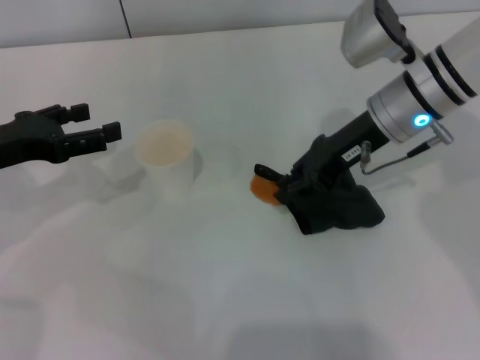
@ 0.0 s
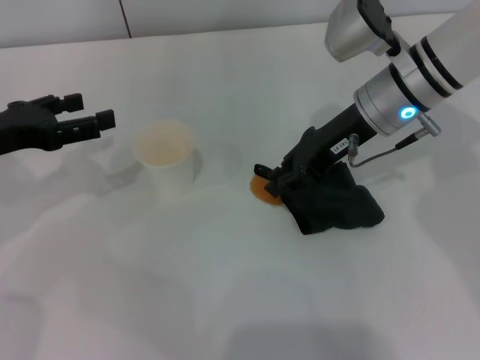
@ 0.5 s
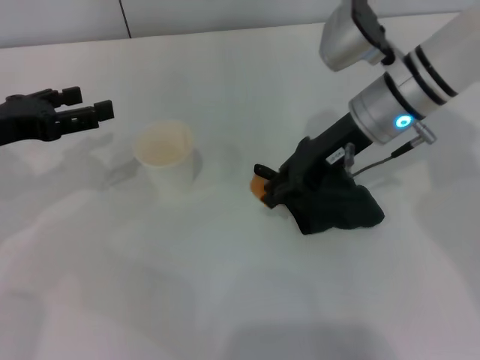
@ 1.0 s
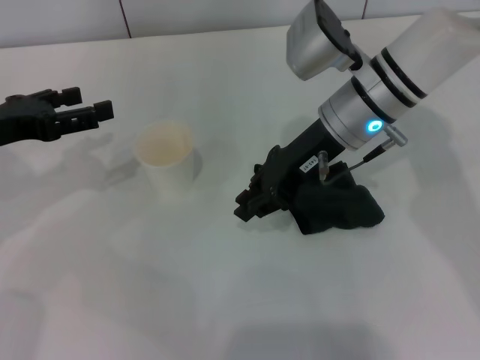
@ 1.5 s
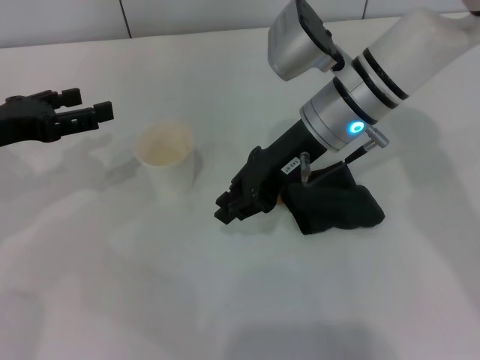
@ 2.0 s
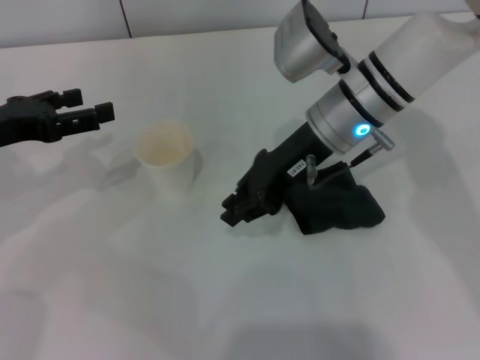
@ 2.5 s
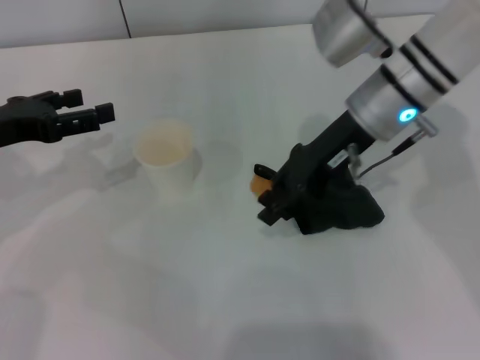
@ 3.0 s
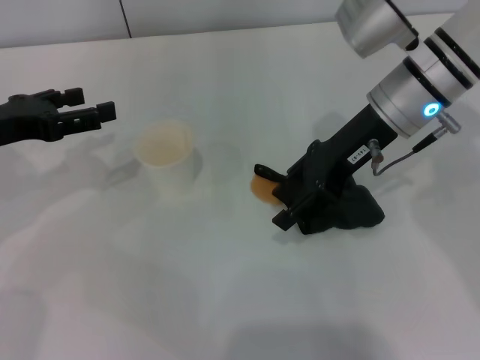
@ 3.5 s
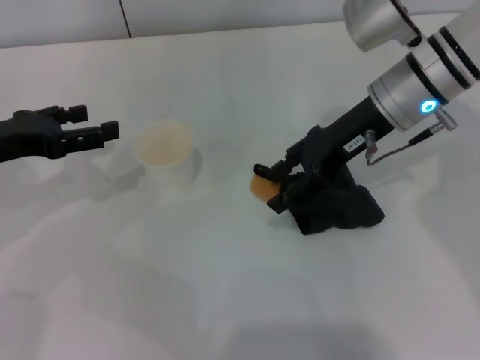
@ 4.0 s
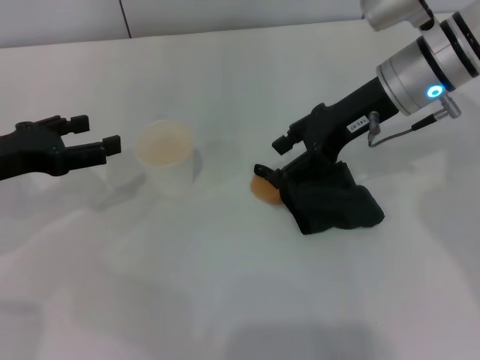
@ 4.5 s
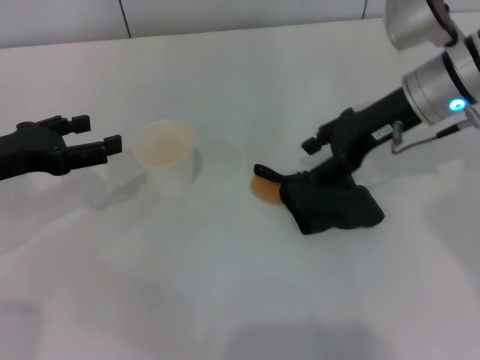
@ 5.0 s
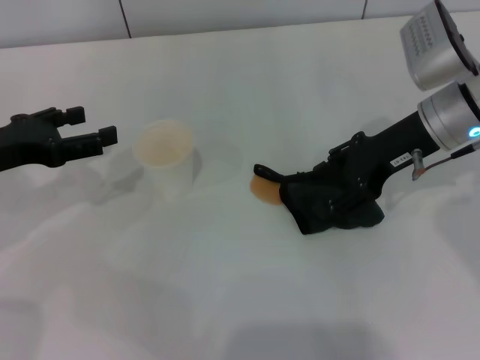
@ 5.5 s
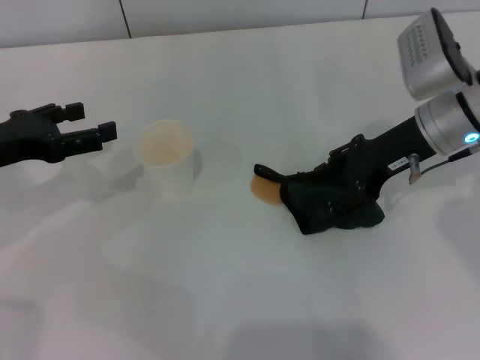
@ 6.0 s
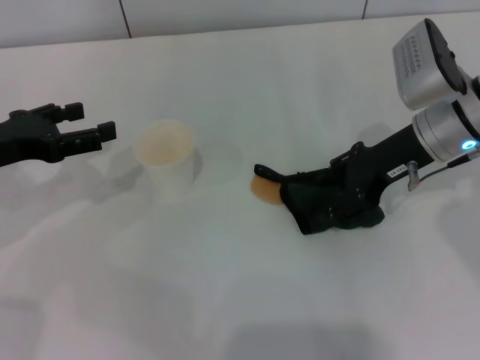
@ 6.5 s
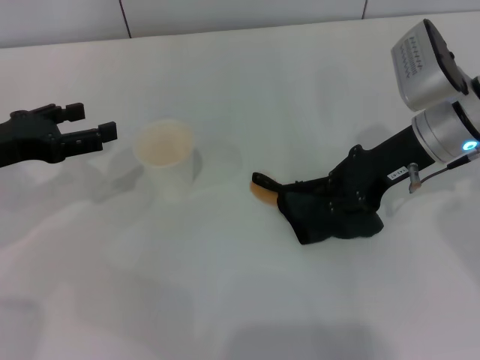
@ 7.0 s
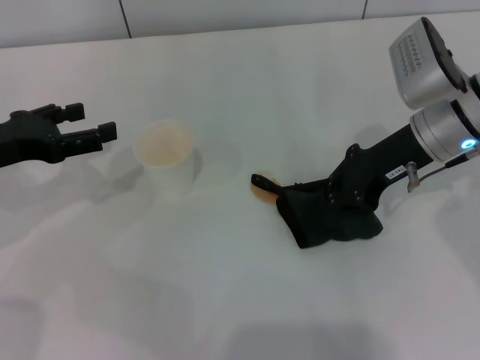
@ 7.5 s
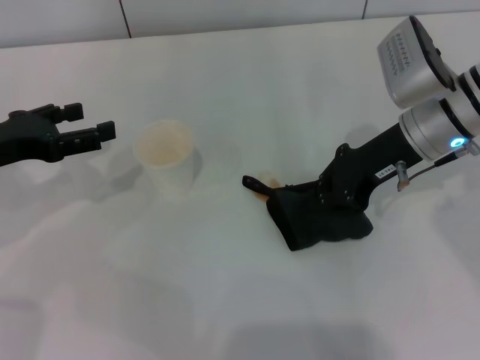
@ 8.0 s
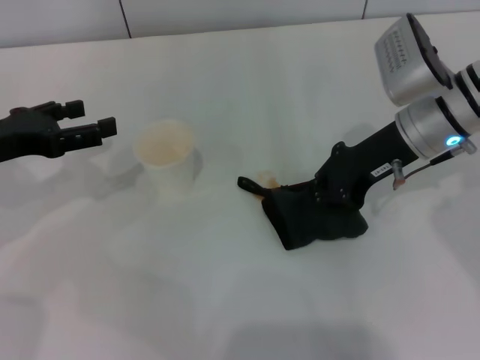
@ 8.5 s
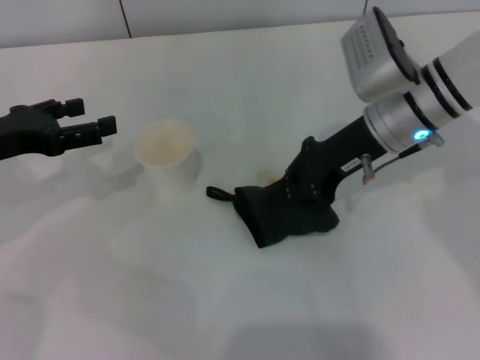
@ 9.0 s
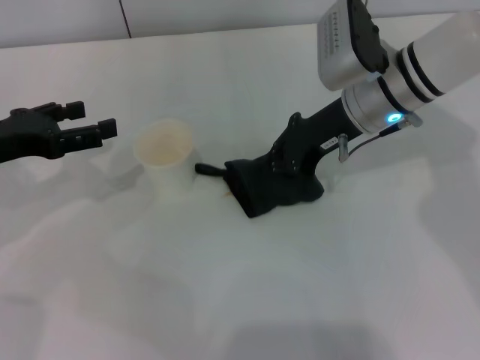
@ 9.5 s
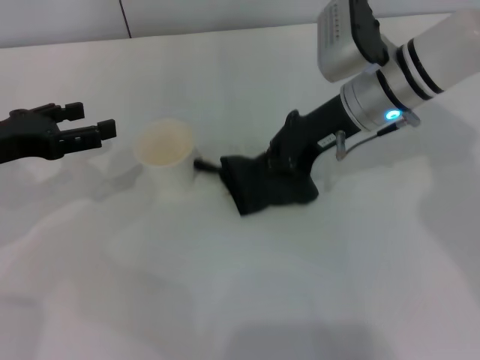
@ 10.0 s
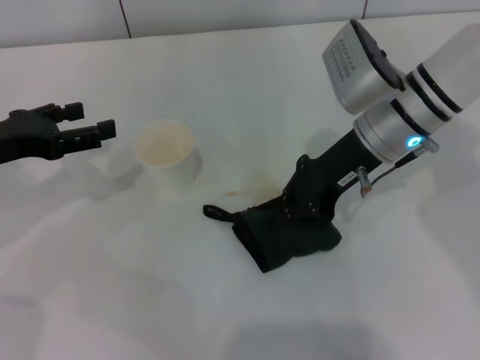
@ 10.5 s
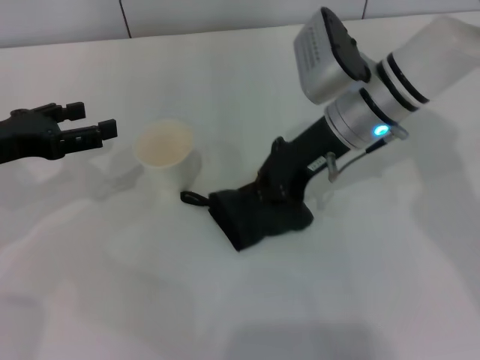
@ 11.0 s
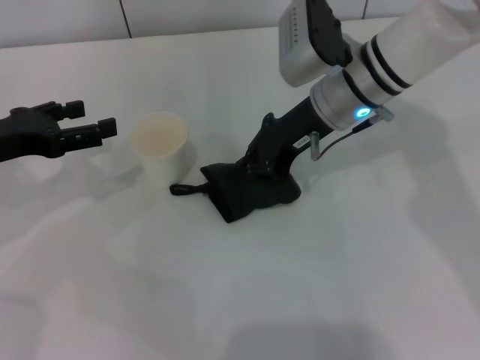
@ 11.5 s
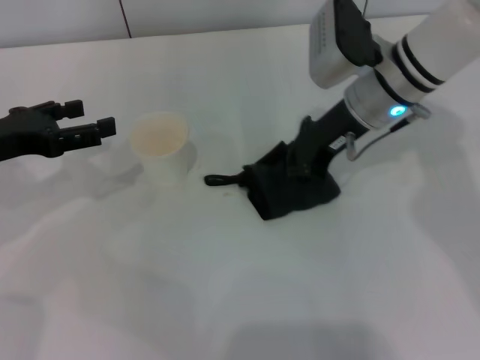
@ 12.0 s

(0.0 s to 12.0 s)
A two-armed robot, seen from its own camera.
Step, 0.0 s - 7.0 s: Grasp the rag with the right gripper.
0.0 s - 2.0 s: The right gripper heads to the left, covering some 5 cm.
2.0 s - 4.0 s: The right gripper travels to the right by approximately 5 cm, and opens its fingers.
4.0 s - 6.0 s: The right gripper heads to the right, covering approximately 5 cm.
6.0 s - 8.0 s: The right gripper closes its fingers.
8.0 s - 10.0 s: The right gripper shifts roughly 5 cm to the left.
10.0 s - 12.0 s: The grippers make only small movements.

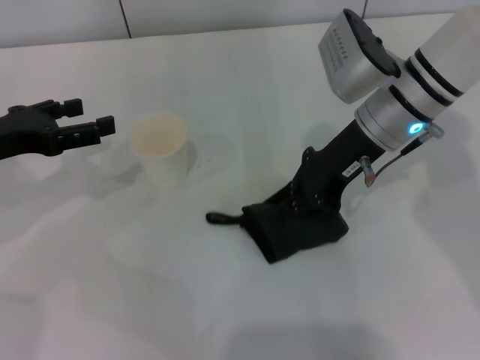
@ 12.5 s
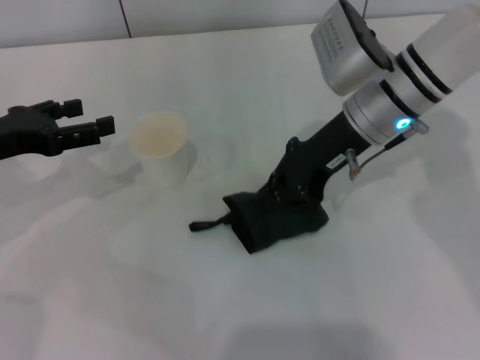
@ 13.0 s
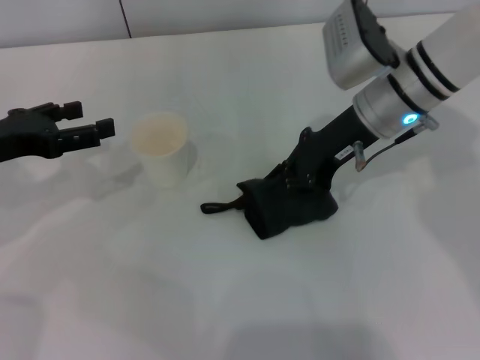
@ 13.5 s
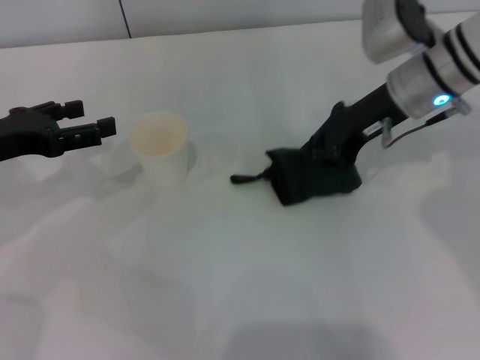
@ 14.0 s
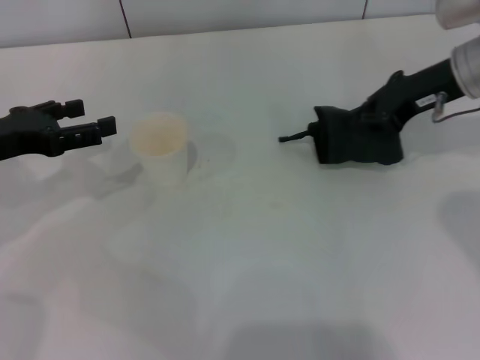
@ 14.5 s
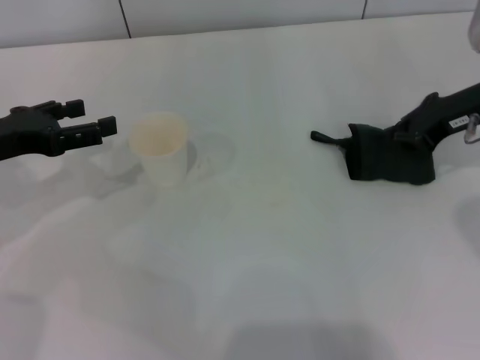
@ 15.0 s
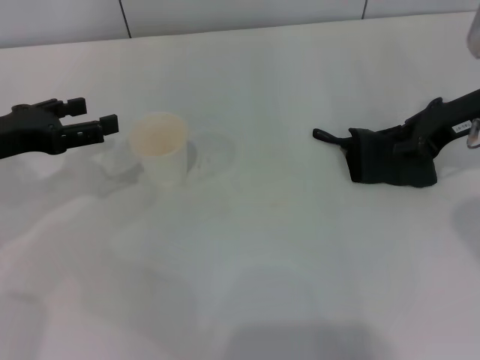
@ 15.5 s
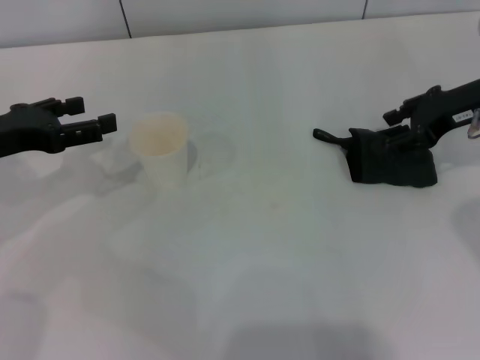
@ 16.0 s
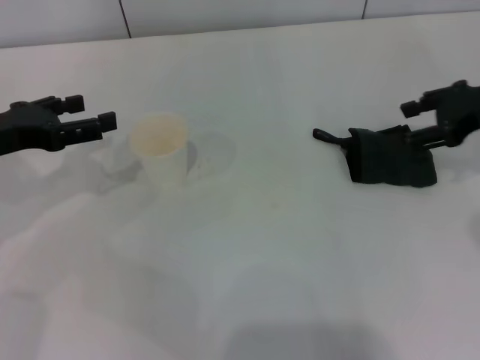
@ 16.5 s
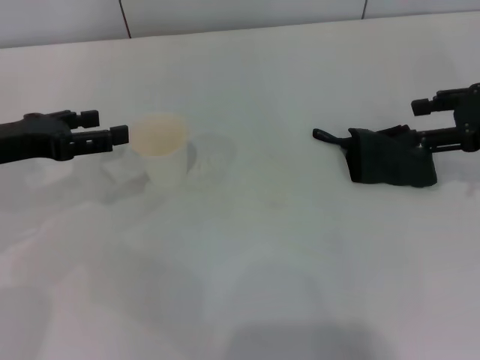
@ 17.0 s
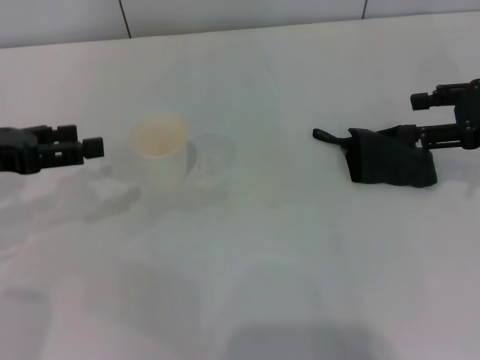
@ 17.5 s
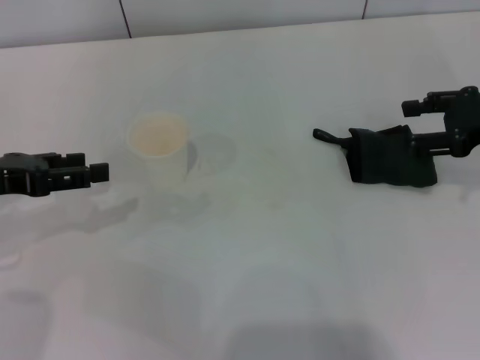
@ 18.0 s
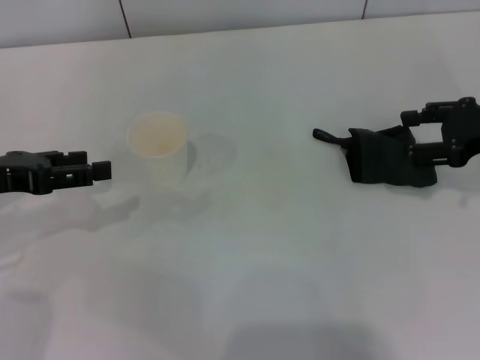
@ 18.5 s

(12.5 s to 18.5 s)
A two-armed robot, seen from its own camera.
Step, 12.5 s - 15.0 s: Wipe the stains off the table with the right gripper.
Step, 15.5 s - 16.0 s: Place the rag on the table with the right gripper.
12.5 s - 14.5 s: The right gripper moves to the right, approximately 10 cm.
14.5 s - 16.5 s: The right gripper travels to the right by about 5 cm, and opens its fingers.
16.5 s - 18.5 s: The left gripper closes up.

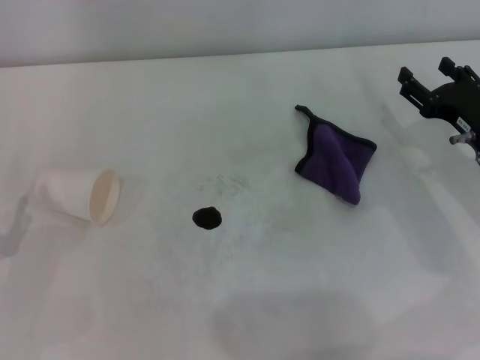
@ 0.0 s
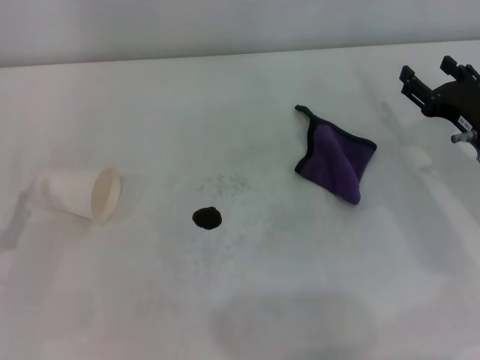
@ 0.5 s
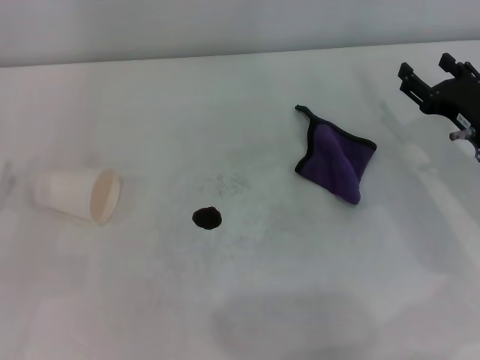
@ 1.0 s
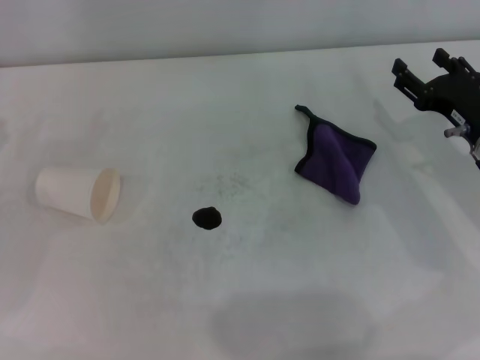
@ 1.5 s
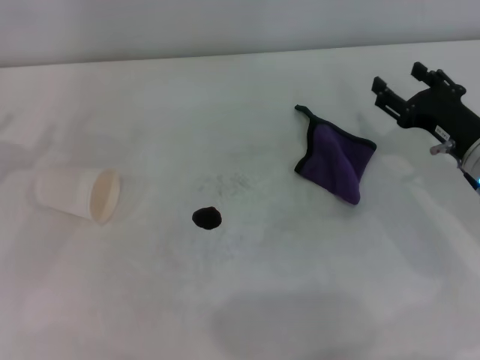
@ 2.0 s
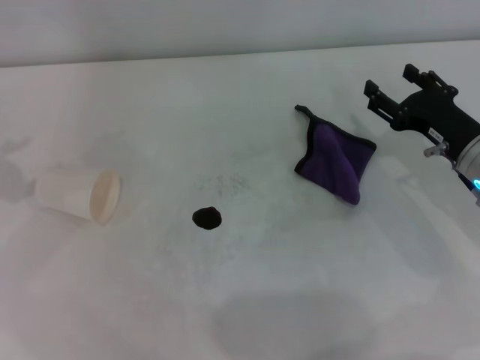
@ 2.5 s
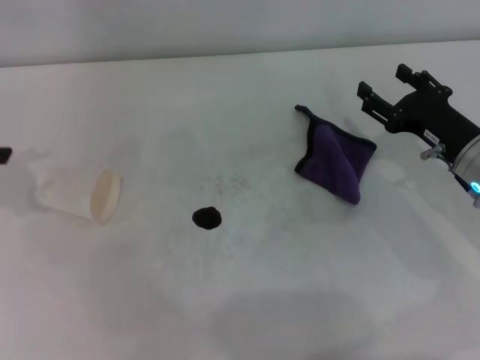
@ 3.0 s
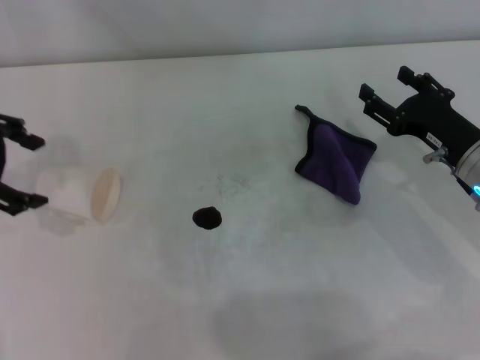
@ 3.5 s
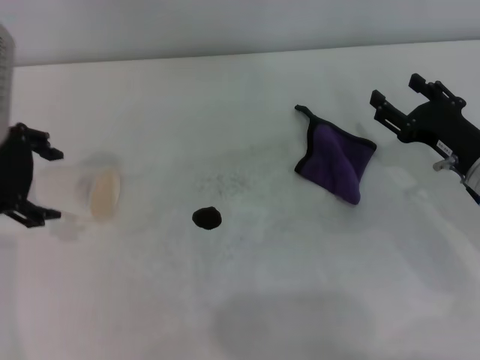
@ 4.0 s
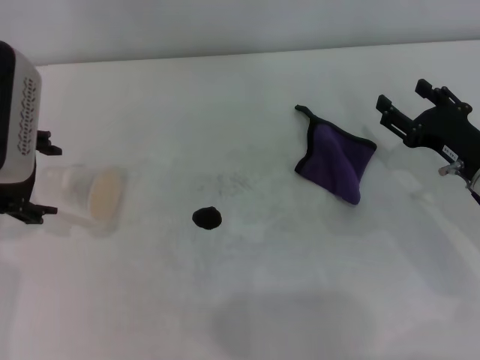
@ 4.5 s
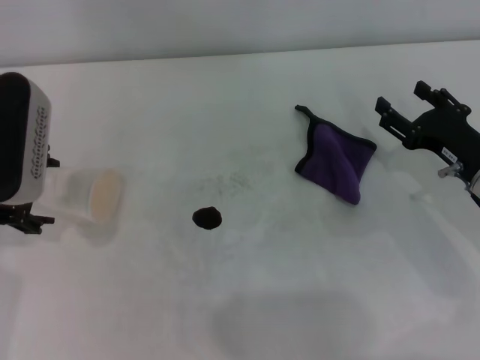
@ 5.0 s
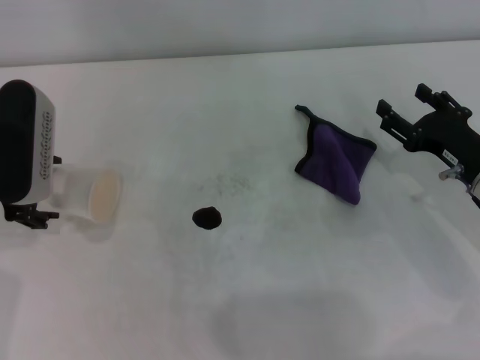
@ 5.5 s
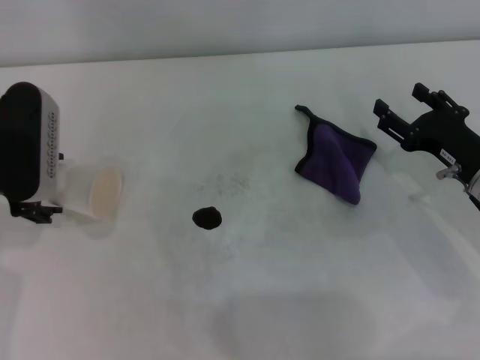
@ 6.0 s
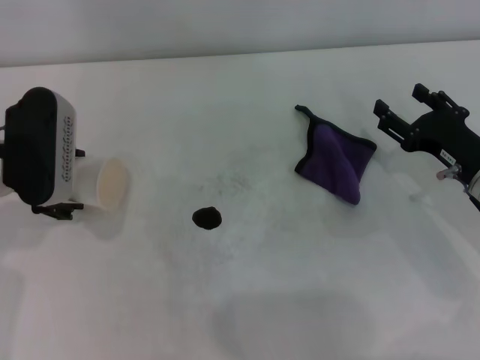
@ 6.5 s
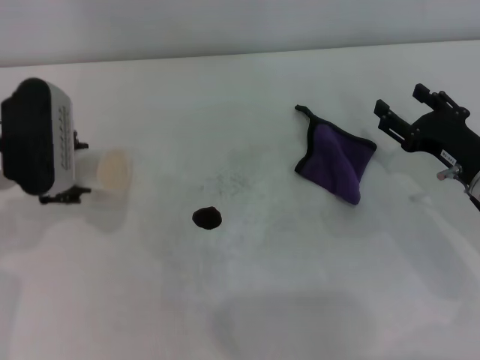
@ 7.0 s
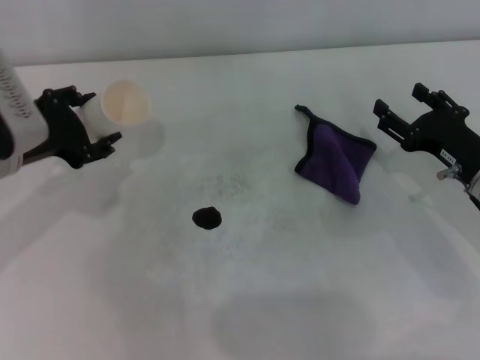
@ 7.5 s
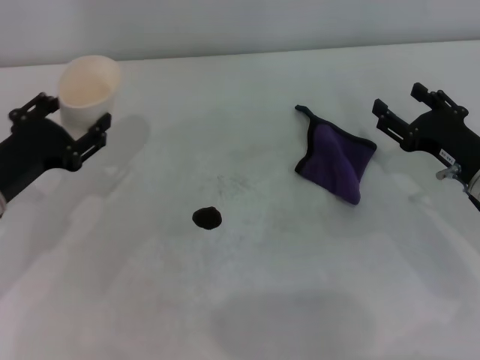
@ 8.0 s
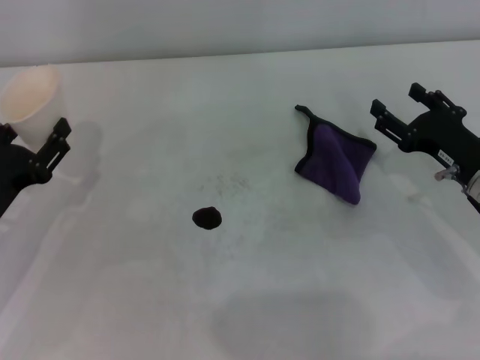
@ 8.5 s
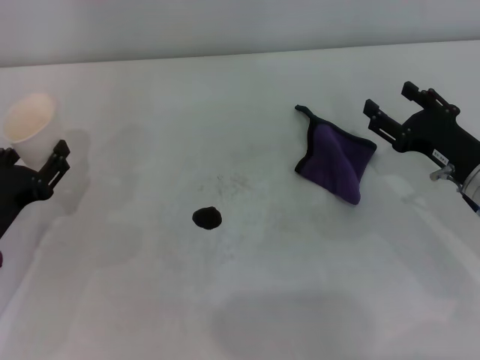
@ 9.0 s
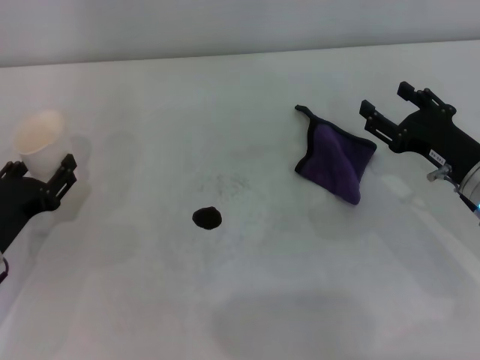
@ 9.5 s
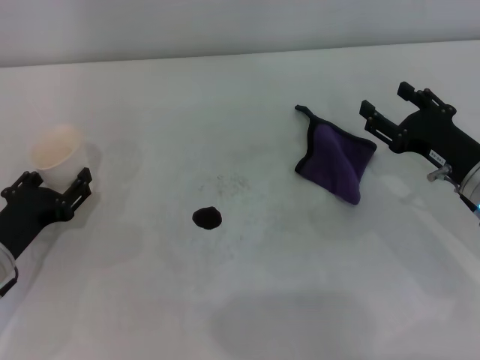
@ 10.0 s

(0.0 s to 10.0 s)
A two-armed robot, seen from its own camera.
Step, 0.0 s - 6.0 s: Grasp the paper cup with the left gripper.
2.0 s - 4.0 s: The left gripper heads upward and to the right, covering about 15 cm.
4.0 s - 6.0 s: The left gripper heads downward, covering roughly 5 cm.
6.0 s - 8.0 s: The left gripper is displaced downward by approximately 5 cm, and closes.
8.0 s - 10.0 s: The left gripper shifts some 5 cm downward.
